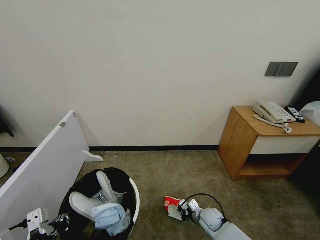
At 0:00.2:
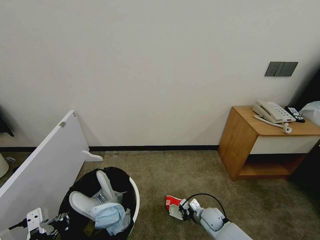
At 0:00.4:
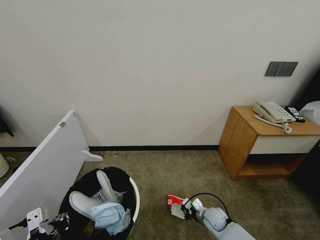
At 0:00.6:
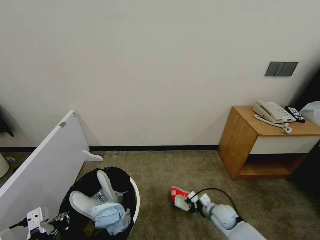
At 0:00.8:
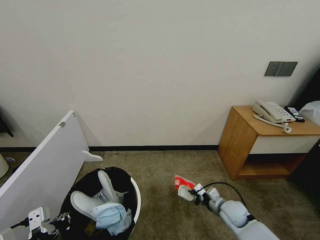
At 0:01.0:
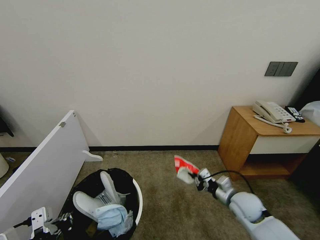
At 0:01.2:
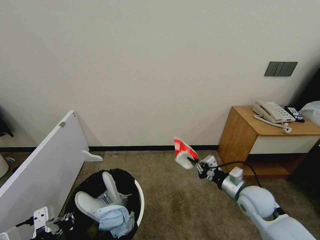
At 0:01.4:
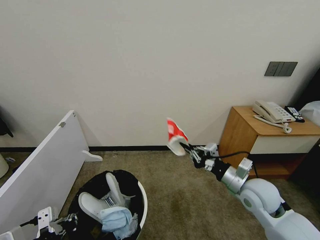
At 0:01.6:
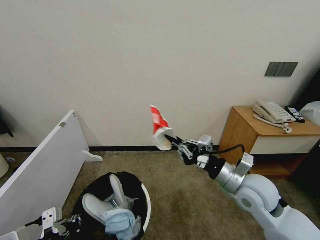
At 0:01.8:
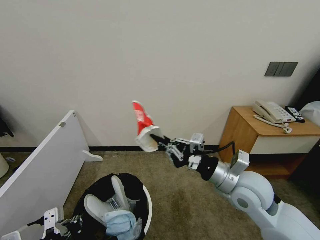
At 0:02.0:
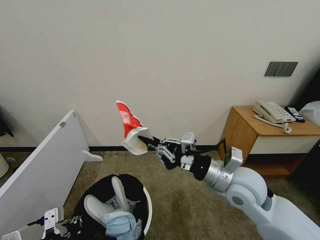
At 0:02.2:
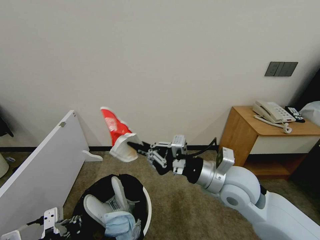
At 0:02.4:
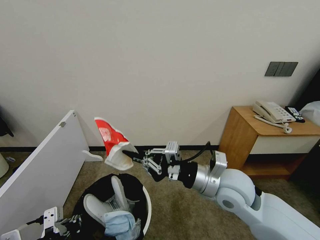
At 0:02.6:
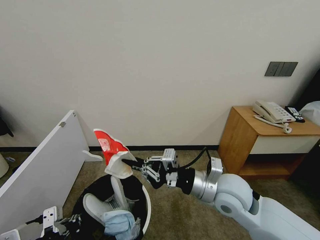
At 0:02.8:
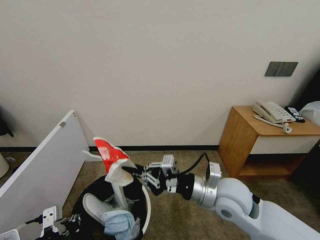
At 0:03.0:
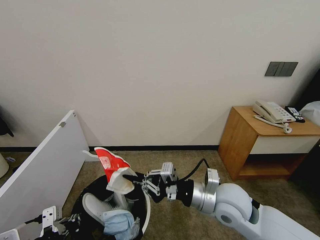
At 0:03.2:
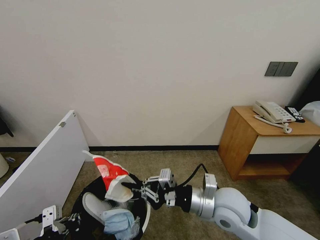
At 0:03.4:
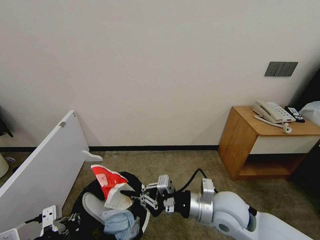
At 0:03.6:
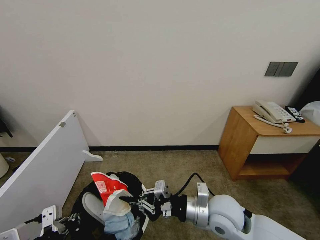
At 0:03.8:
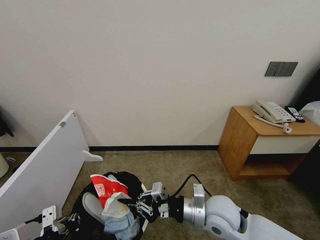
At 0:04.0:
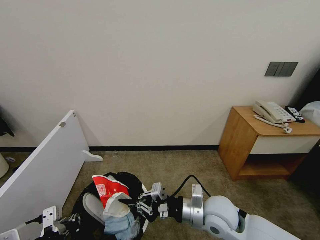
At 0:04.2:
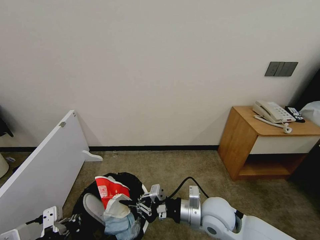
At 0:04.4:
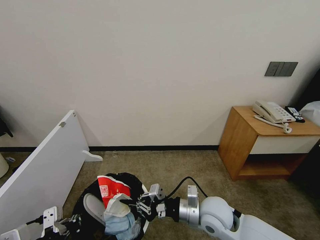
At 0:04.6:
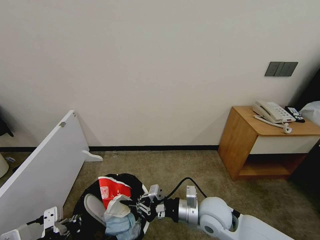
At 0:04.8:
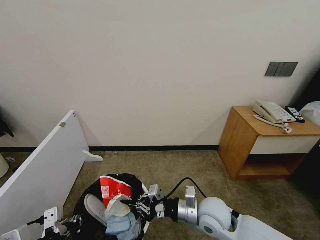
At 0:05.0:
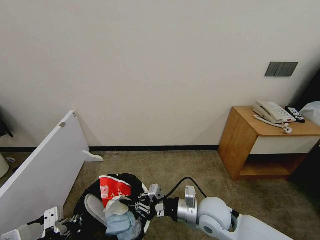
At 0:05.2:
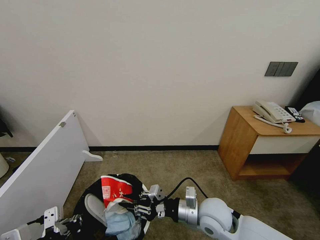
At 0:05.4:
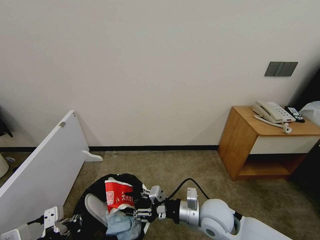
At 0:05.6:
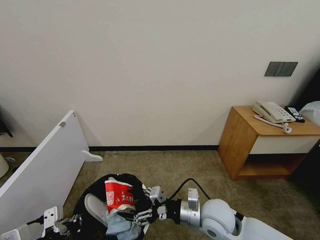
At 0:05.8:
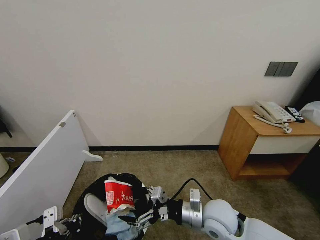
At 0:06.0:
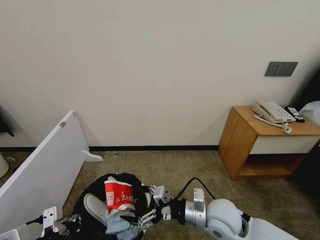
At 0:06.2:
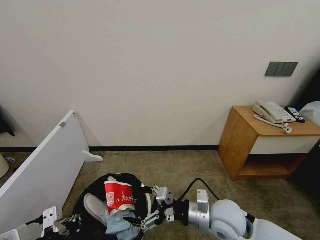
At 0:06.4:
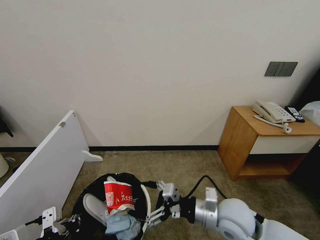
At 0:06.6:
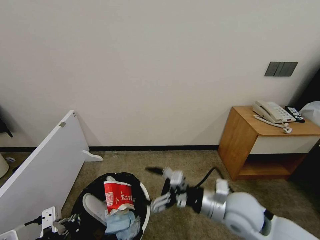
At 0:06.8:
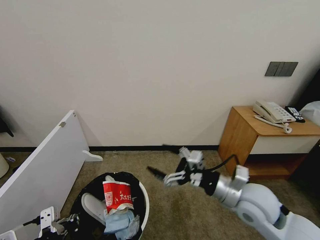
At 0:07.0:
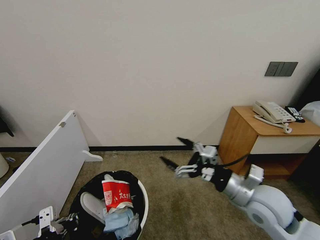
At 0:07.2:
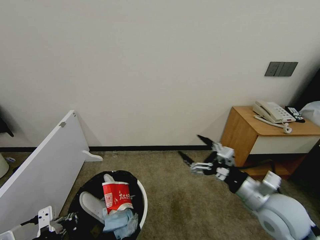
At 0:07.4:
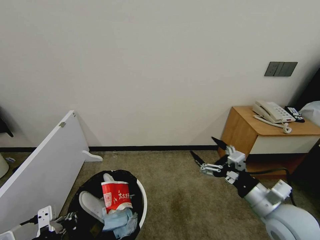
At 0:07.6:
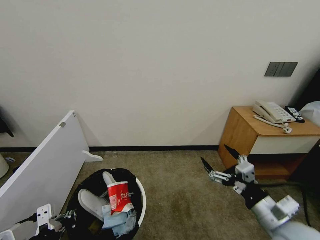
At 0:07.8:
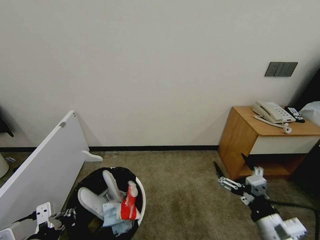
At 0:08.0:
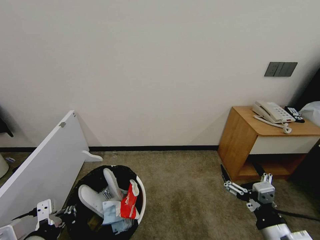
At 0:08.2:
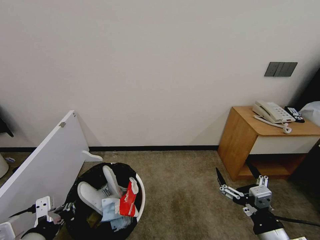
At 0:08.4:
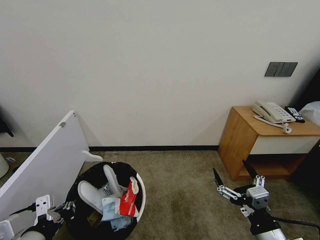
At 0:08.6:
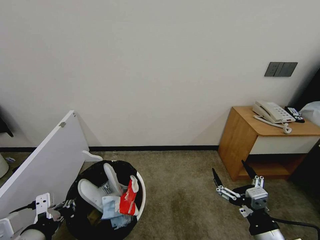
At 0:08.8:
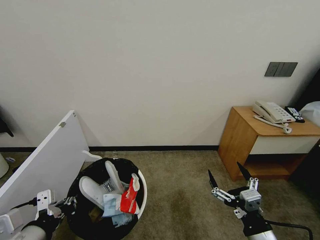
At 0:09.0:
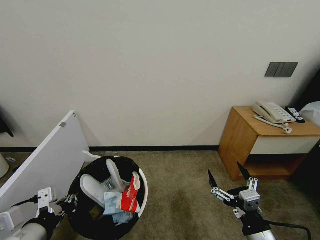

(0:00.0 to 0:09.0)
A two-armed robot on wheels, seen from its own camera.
Task of the whole recording: Pick up the trash bin, then pick up the garbage from the floor and place it into the trash bin.
0:00.0 - 0:01.6: The right gripper shifts roughly 30 cm upward.
0:01.6 - 0:03.0: The right gripper is displaced to the left by approximately 5 cm.
0:03.0 - 0:04.4: The right gripper heads downward, covering some 10 cm.
0:04.4 - 0:06.0: The right gripper opens.
0:06.0 - 0:07.6: The right gripper moves to the right and backward, some 15 cm.
0:07.6 - 0:09.0: The right gripper shifts roughly 10 cm backward and downward.
